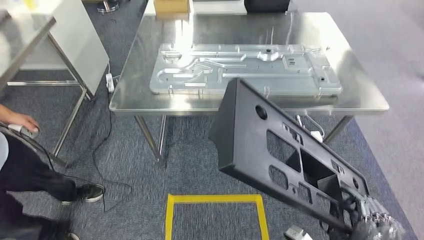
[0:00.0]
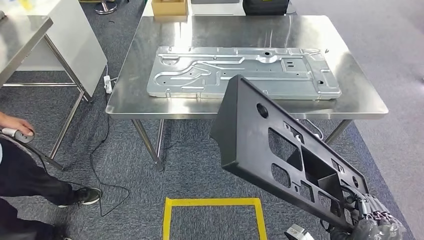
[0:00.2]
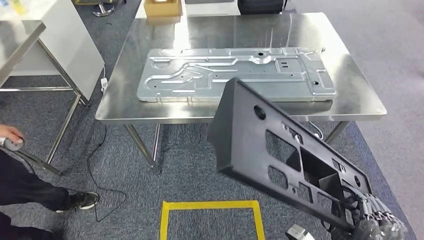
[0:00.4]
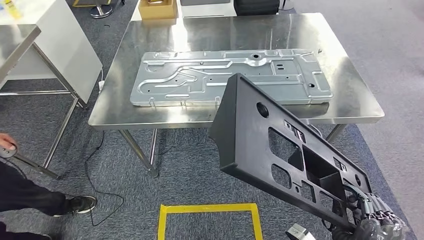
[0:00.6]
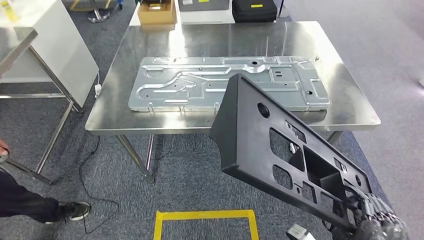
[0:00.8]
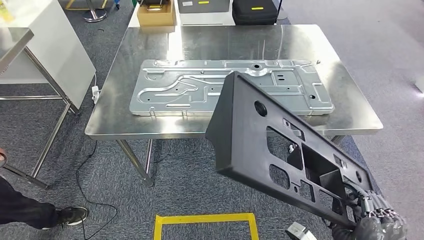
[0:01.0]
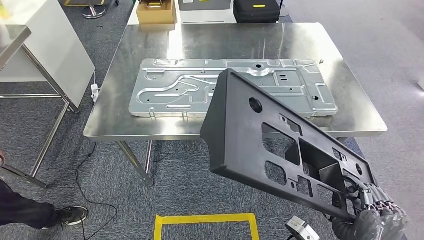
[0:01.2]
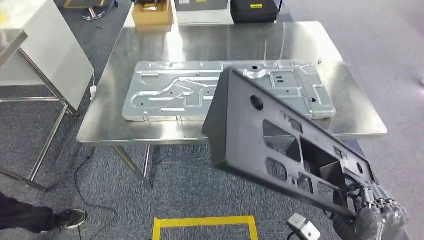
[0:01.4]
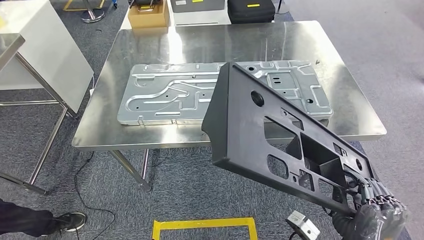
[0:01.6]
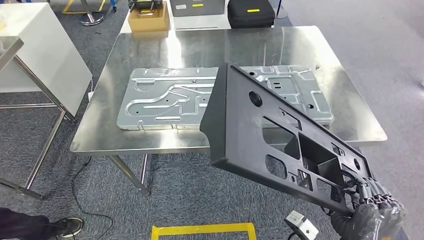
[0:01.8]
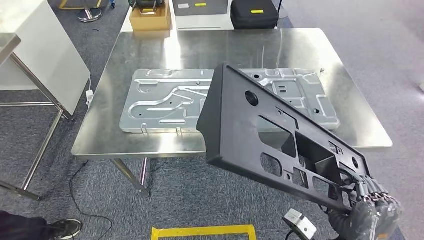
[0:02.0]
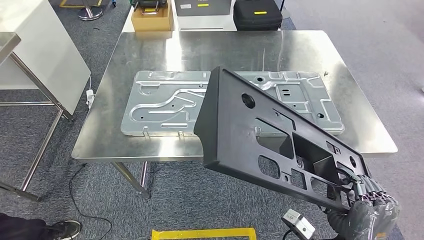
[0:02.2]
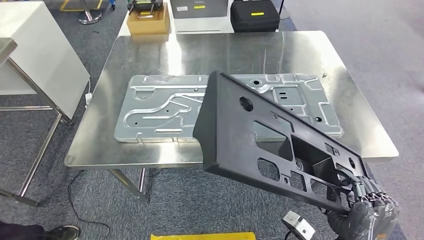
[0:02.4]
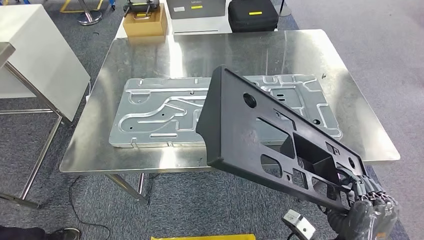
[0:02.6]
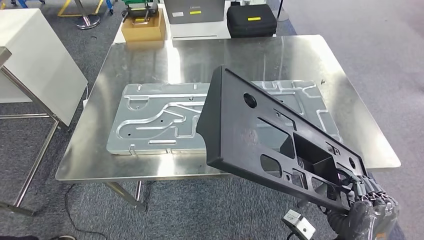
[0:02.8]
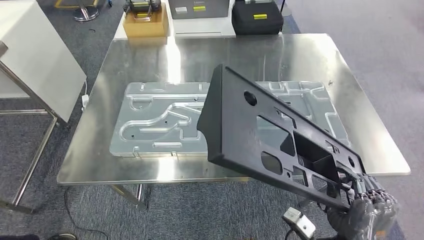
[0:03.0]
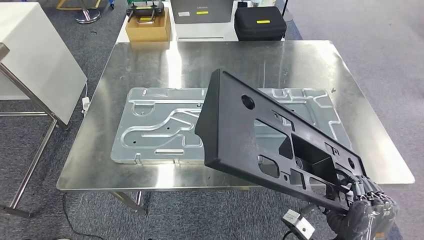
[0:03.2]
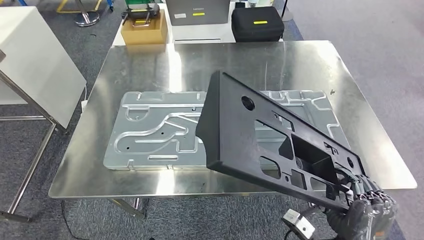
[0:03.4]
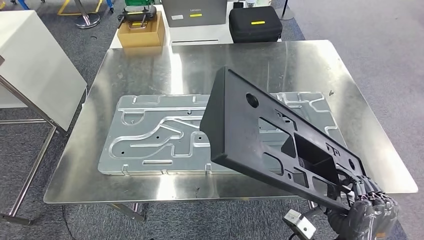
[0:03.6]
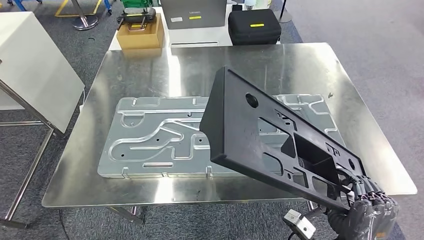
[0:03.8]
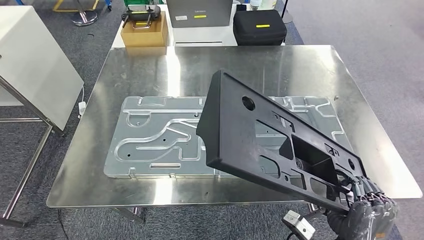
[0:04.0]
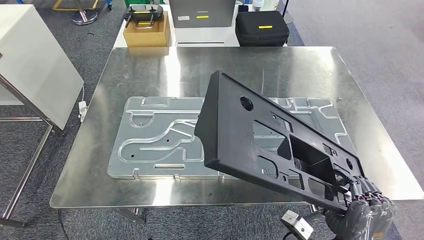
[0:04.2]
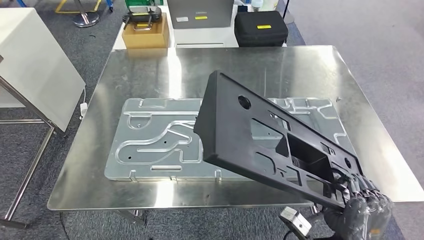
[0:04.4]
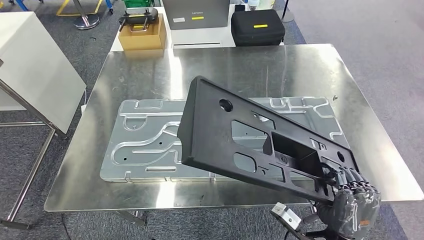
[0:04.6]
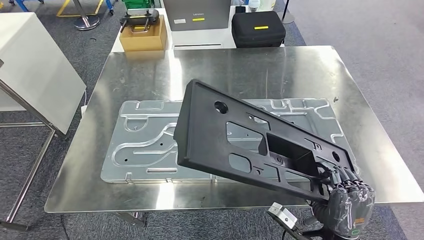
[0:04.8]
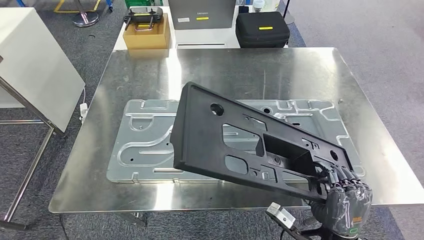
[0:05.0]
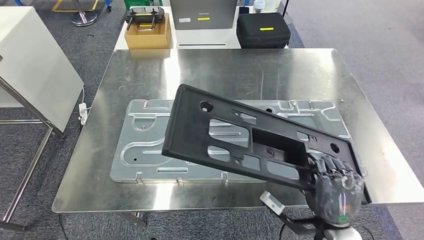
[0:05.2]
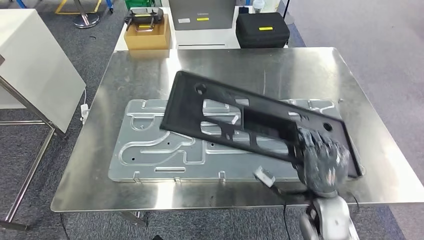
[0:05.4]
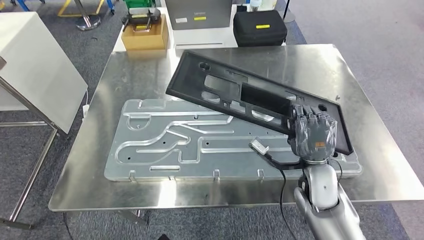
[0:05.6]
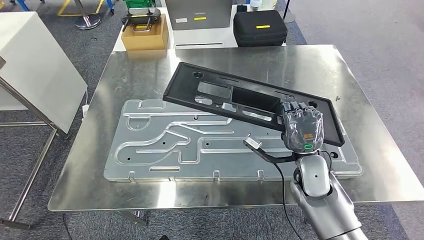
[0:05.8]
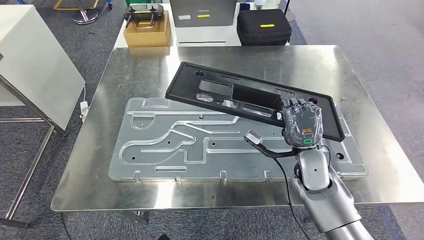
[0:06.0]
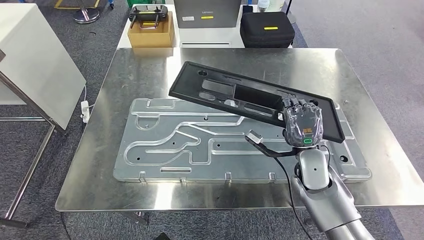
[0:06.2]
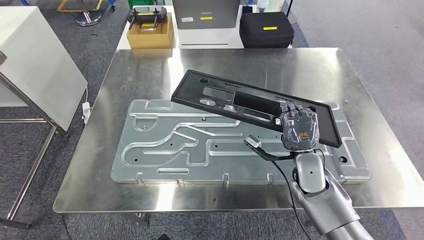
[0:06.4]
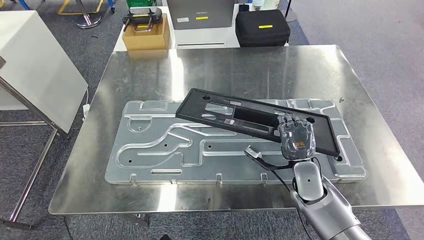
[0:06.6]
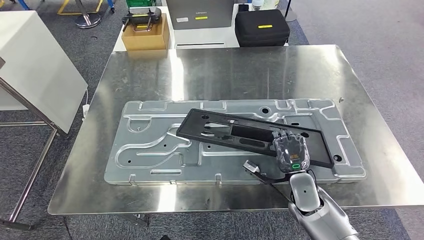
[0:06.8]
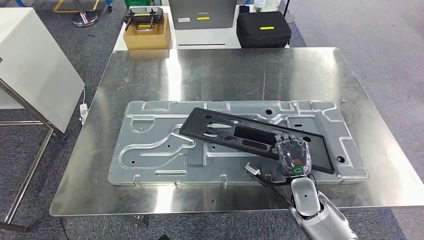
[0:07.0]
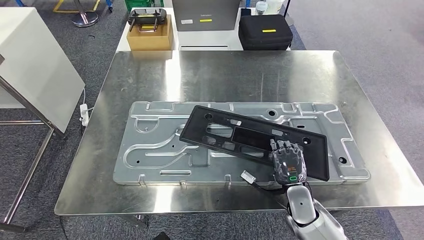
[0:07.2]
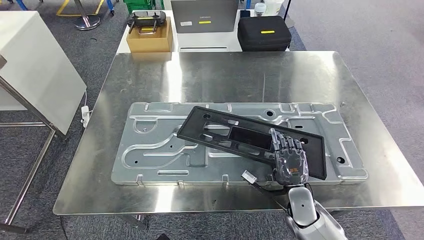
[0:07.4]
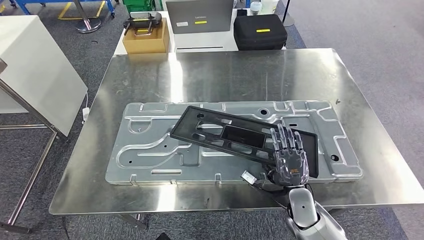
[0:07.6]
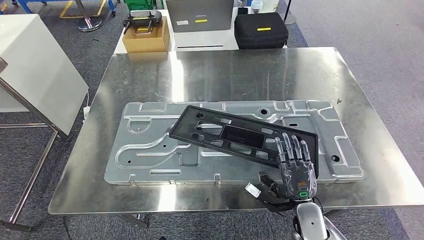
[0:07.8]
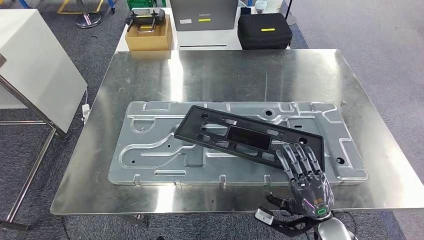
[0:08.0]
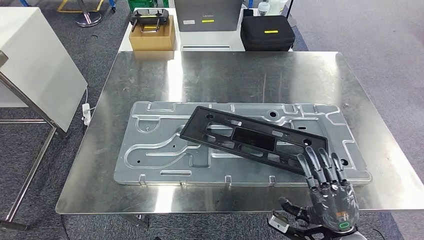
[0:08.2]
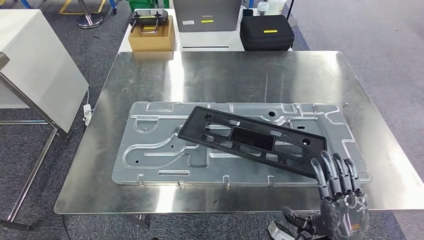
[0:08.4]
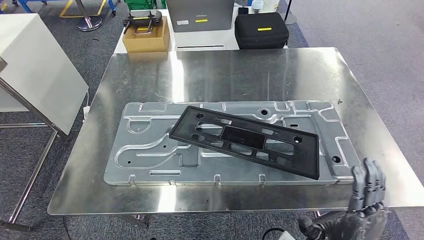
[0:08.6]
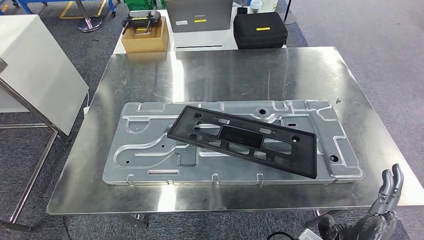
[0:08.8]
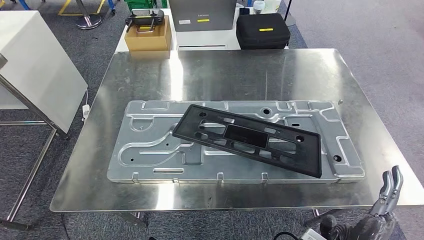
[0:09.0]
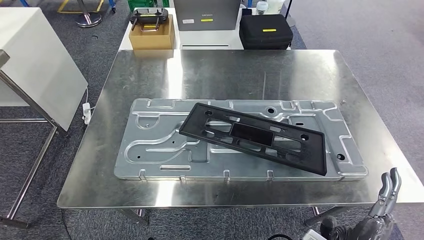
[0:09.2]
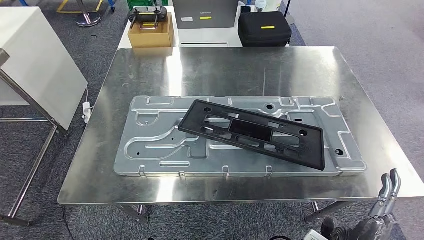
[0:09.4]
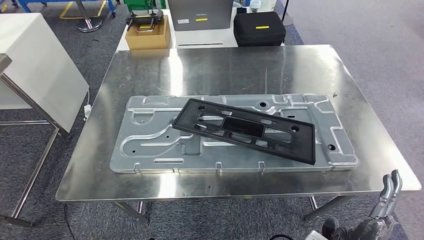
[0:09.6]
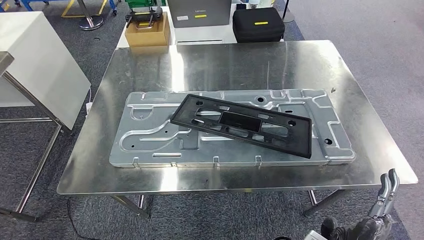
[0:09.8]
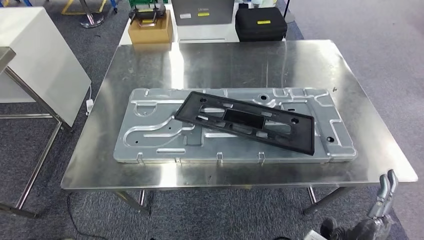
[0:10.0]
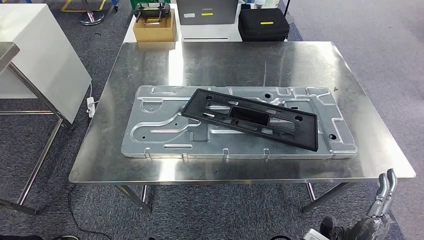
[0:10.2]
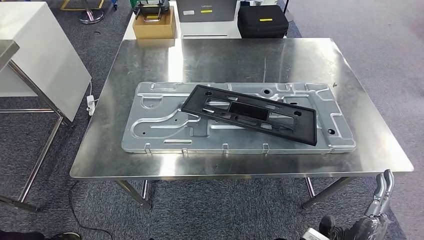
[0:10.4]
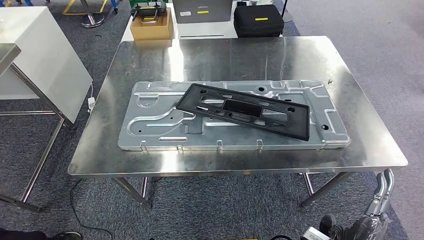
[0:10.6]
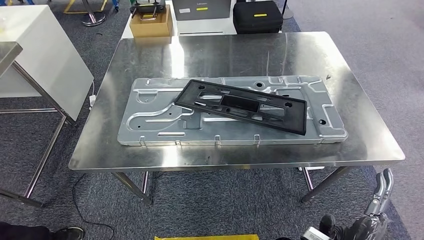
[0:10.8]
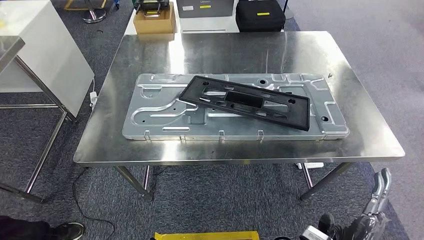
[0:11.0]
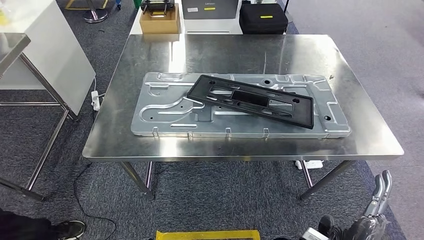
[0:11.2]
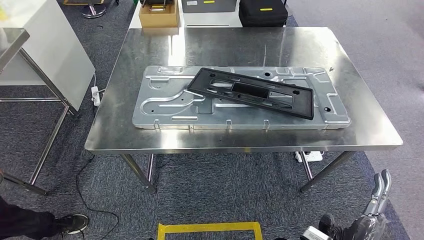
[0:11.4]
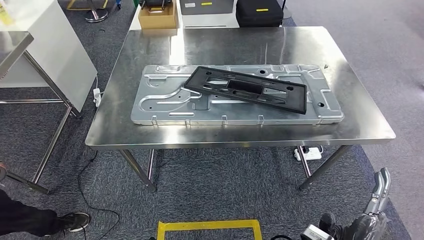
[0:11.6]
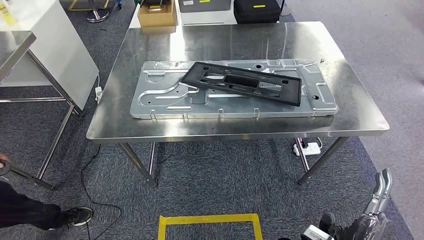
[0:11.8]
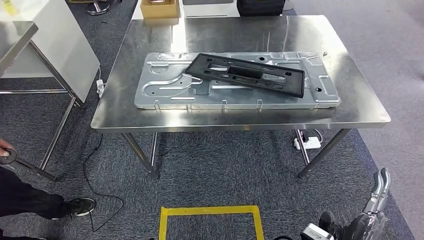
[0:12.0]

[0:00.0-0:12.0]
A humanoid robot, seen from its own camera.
Step, 0:00.0 to 0:11.6: Insert the large material into the corresponding slot on the workbench.
0:07.6 to 0:09.0: The right hand is displaced backward and upward by some 15 cm.

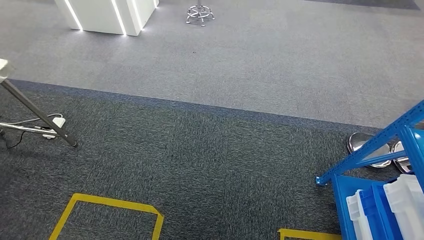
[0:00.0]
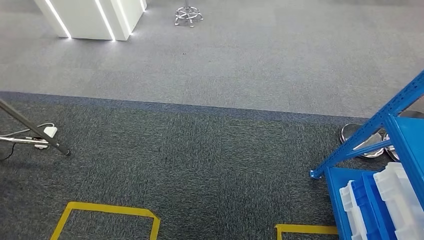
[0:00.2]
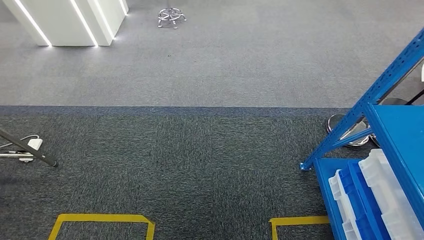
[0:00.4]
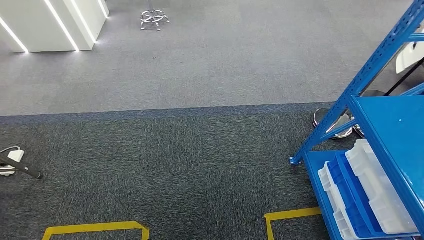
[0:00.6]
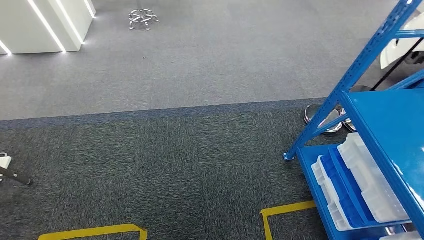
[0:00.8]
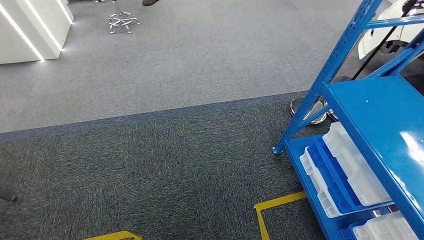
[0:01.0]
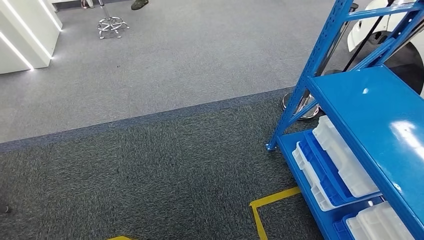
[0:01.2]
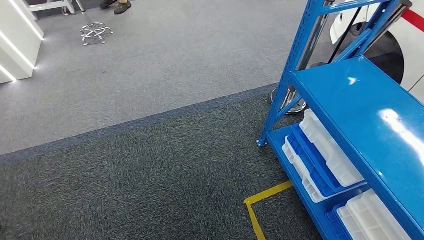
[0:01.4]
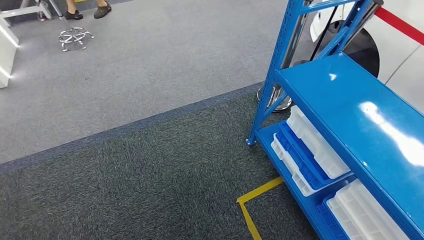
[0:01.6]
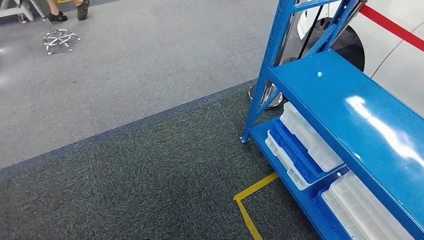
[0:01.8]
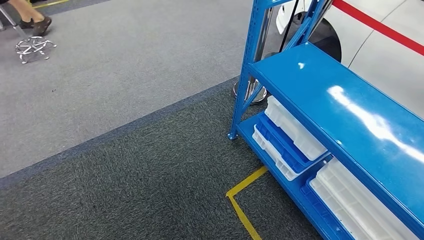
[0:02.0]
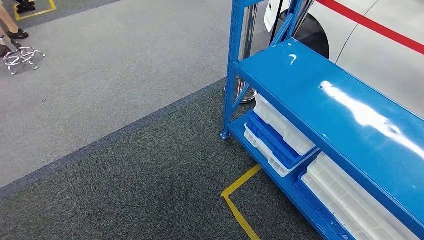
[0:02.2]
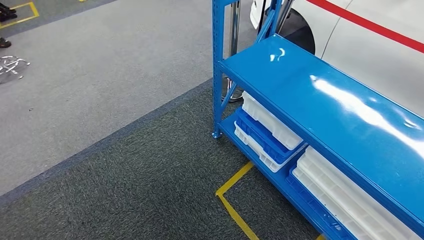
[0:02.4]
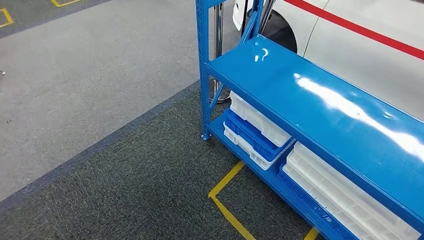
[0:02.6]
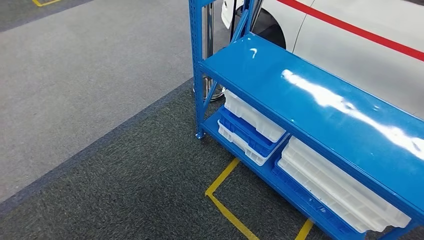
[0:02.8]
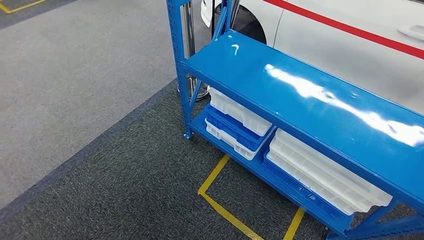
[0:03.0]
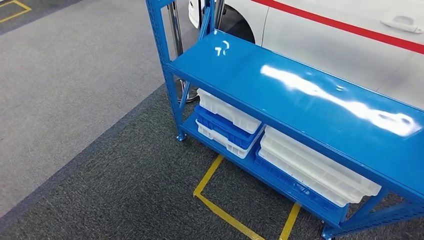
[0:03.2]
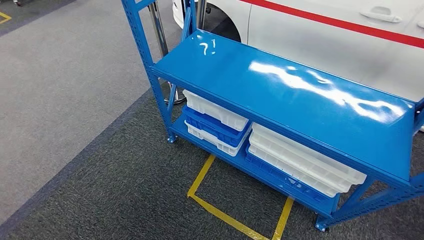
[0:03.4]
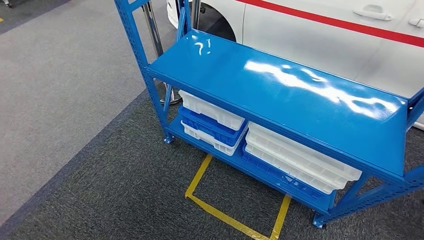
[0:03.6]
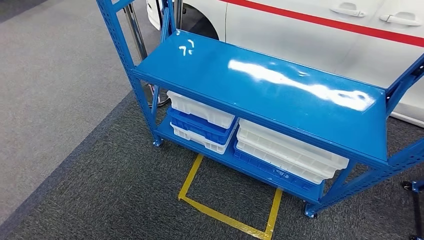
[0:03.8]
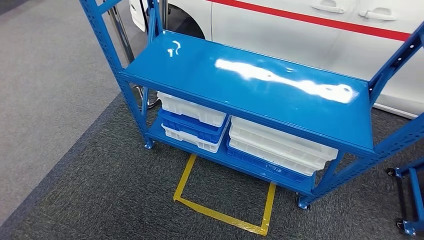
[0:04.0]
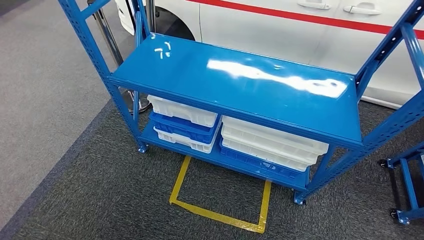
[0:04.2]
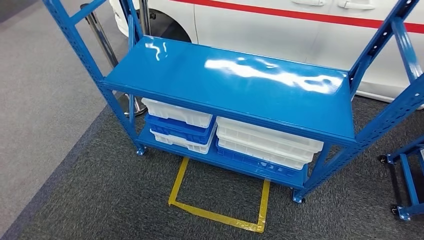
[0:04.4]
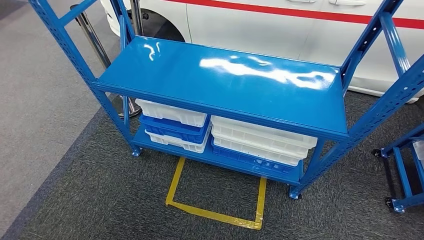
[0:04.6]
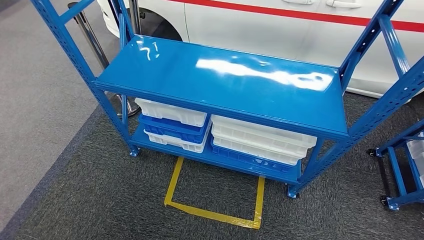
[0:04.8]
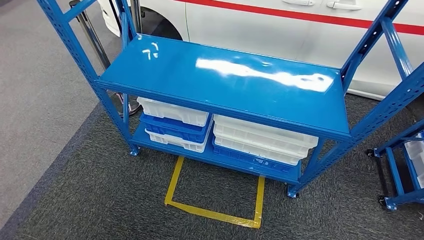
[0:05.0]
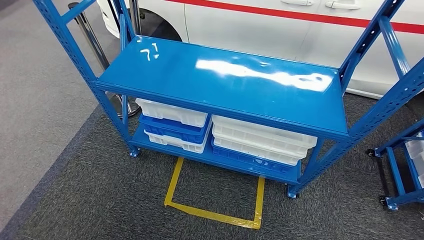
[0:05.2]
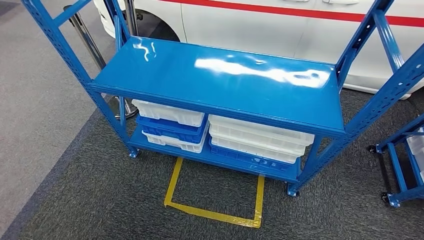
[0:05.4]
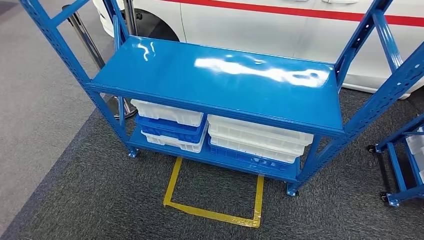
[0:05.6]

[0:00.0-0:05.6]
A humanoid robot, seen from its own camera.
Step, 0:00.0 to 0:05.4: Return to the initial position at the shelf.
